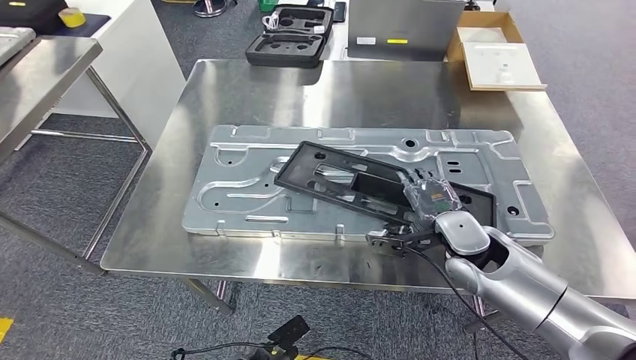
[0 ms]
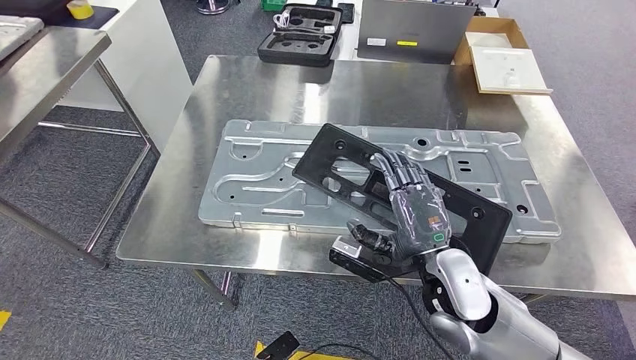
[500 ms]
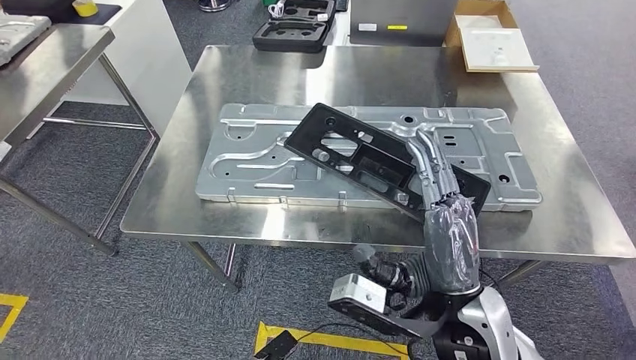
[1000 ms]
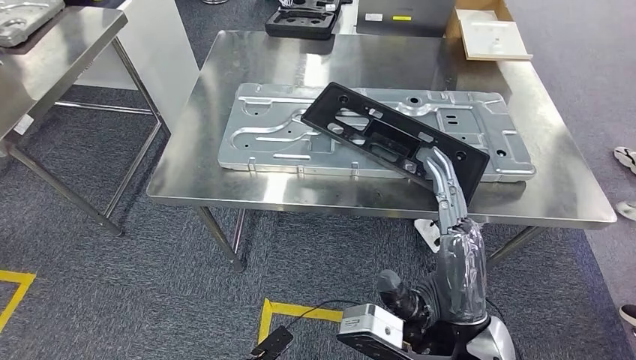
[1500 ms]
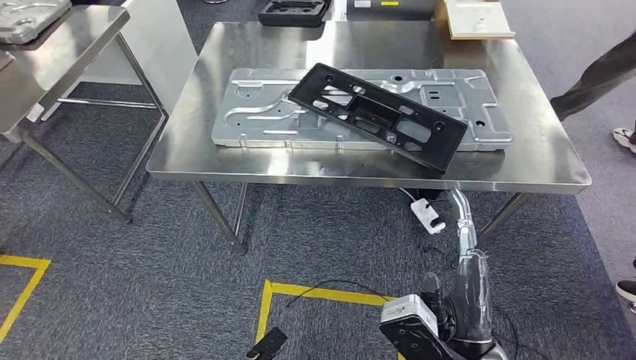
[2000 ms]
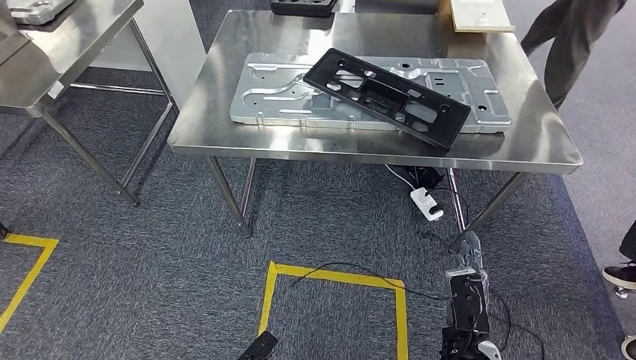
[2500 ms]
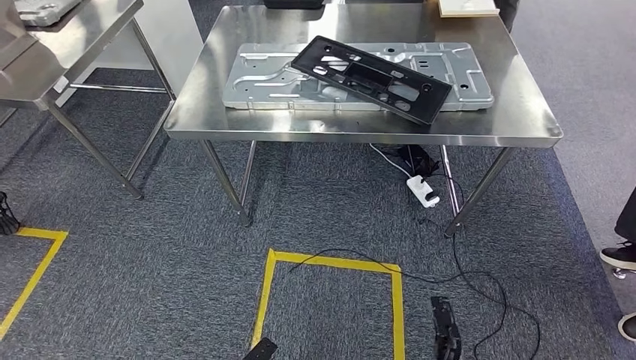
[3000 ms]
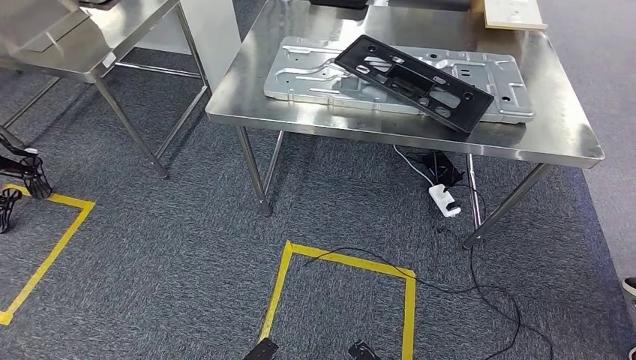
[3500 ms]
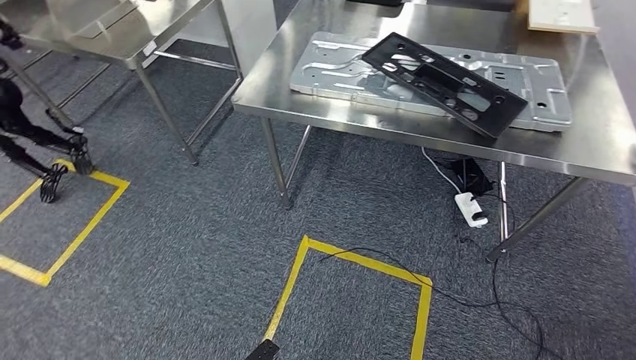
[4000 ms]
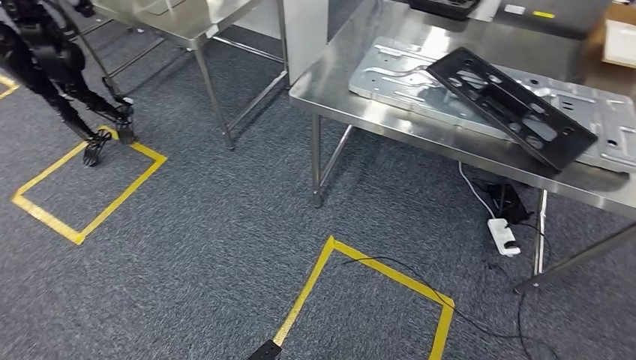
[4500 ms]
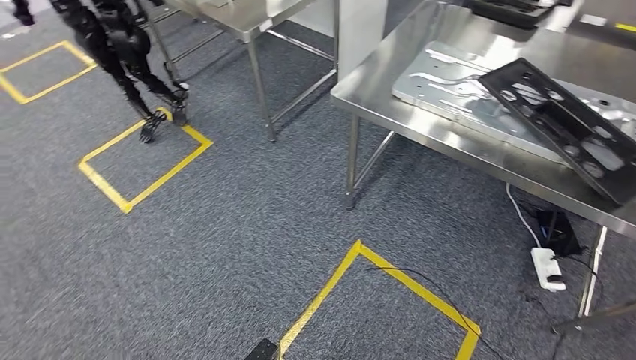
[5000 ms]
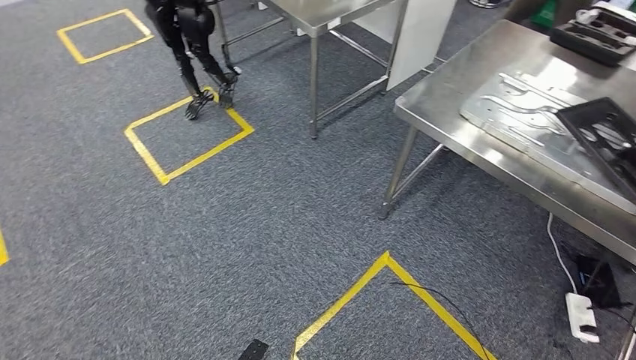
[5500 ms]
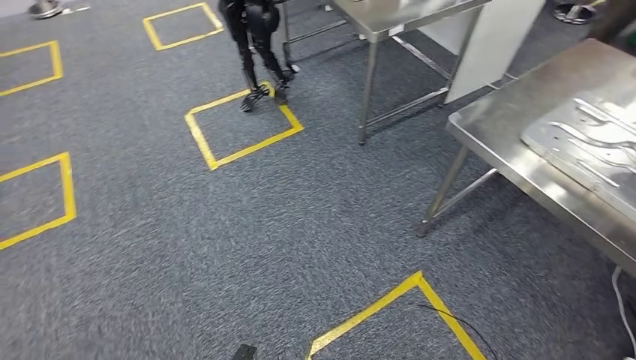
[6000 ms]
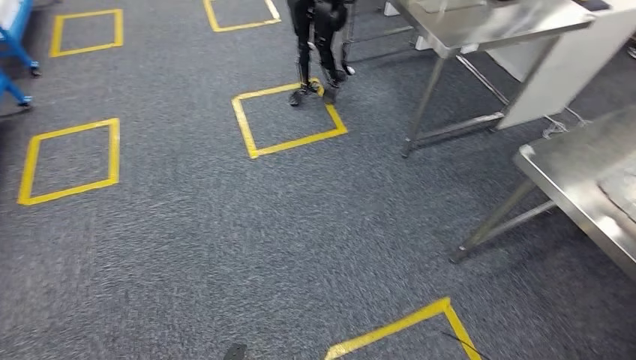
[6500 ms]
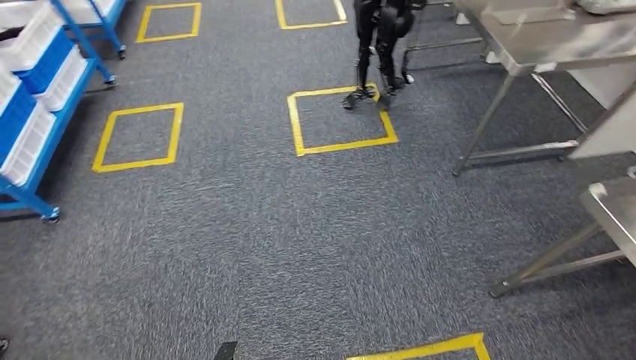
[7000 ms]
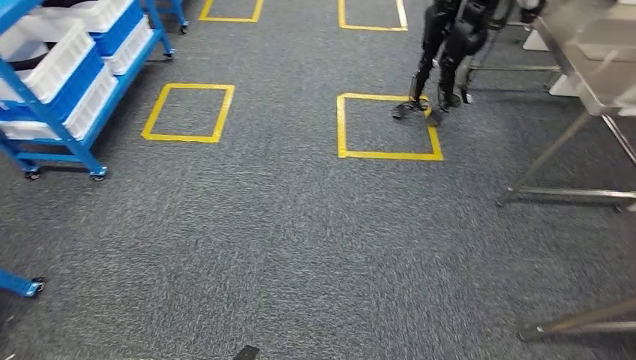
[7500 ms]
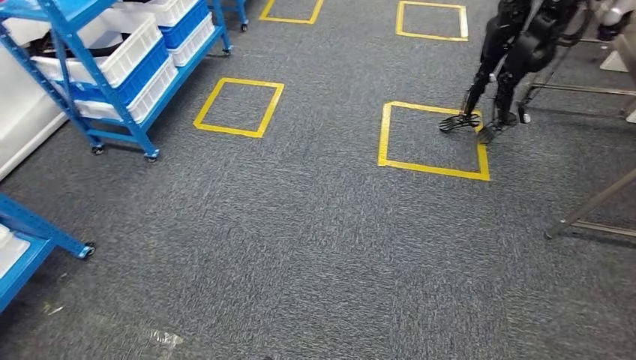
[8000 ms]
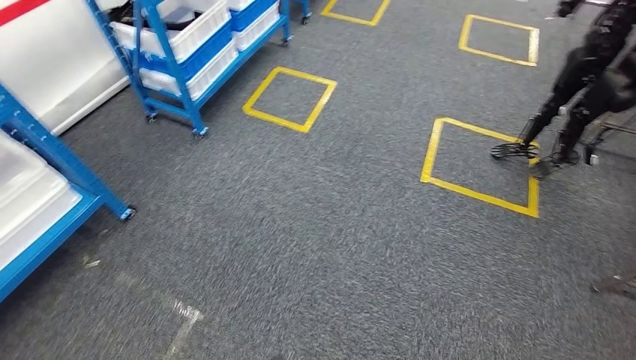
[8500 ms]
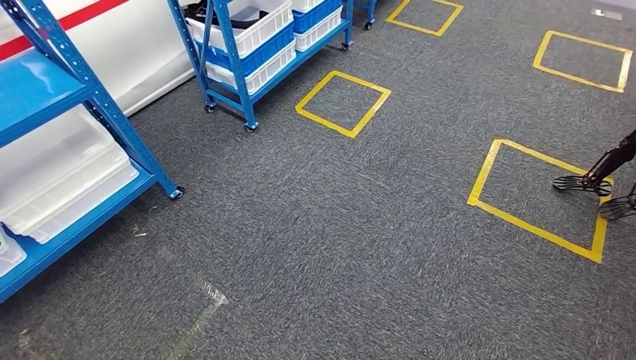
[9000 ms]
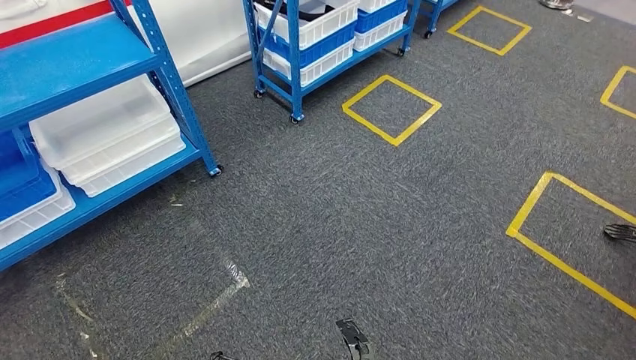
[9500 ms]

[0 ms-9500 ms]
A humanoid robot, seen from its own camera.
Step, 0 ms to 2000 ms: Insert the large material into the corresponding slot on the workbench.

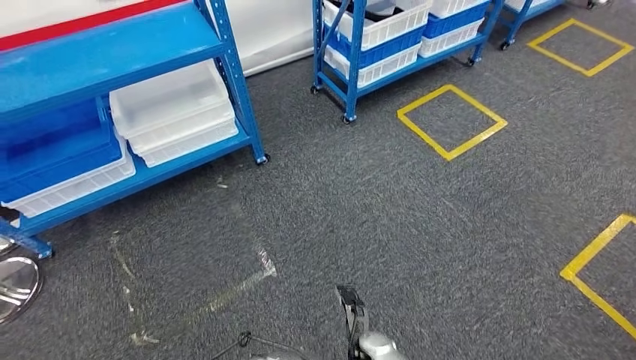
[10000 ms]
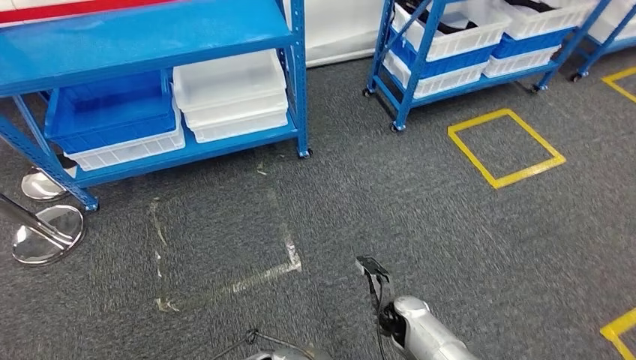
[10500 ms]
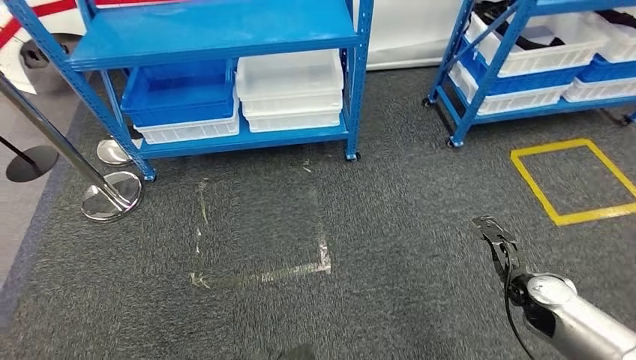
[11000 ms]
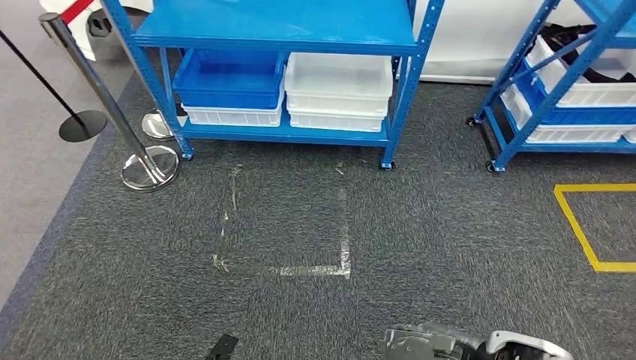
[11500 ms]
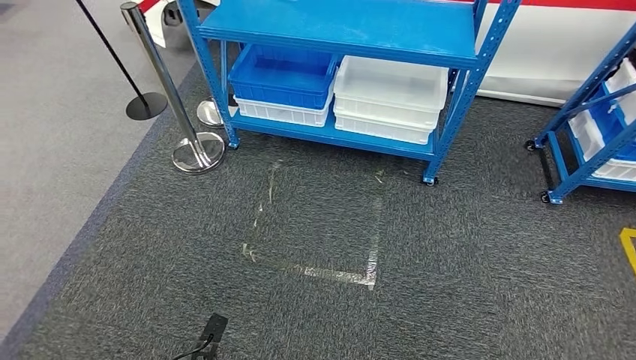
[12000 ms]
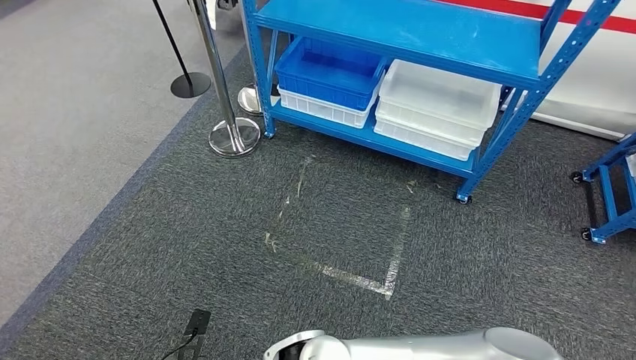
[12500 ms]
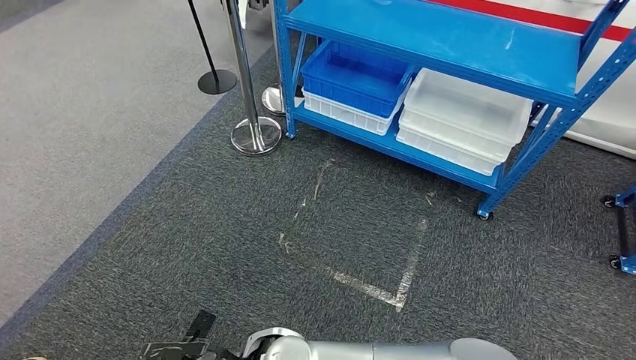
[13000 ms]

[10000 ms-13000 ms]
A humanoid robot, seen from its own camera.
Step, 10000 ms to 13000 ms: Move to the initial position of the shelf.
